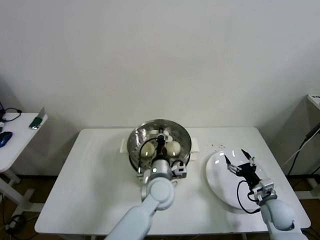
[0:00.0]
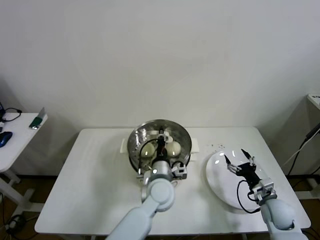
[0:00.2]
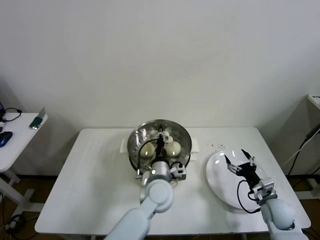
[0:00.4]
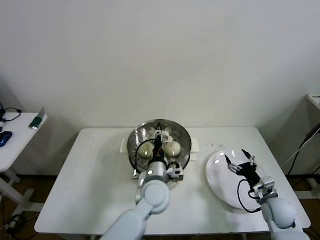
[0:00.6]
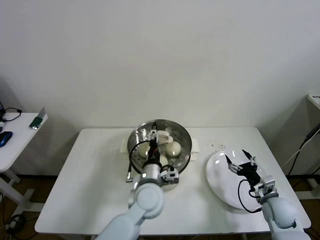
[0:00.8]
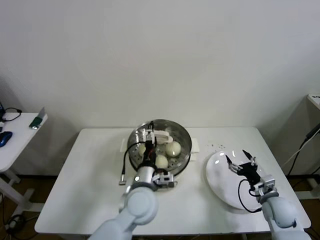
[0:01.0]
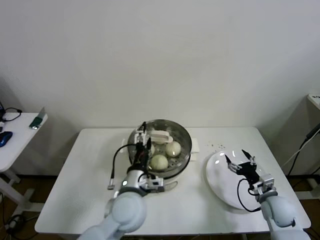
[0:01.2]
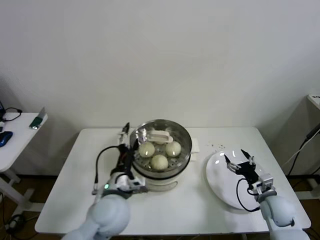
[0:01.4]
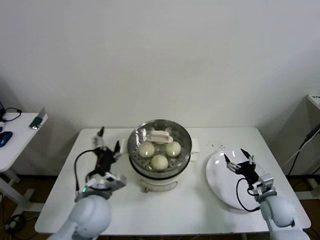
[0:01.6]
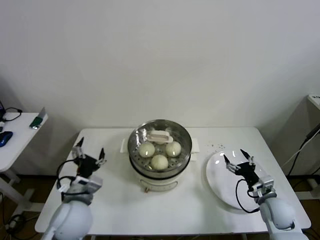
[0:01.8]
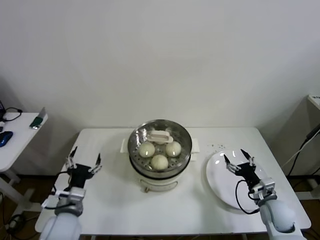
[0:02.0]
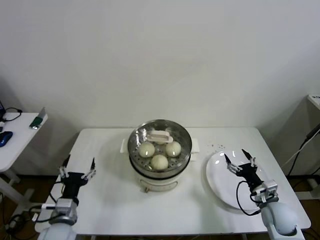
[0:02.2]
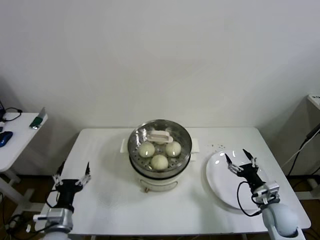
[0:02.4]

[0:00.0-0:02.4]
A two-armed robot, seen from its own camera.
0:00.0 to 0:01.2: The left gripper shifts roughly 10 cm to the left and backward, and opens up.
0:01.2 to 0:02.4: The left gripper heads to the left and downward, covering about 25 cm.
